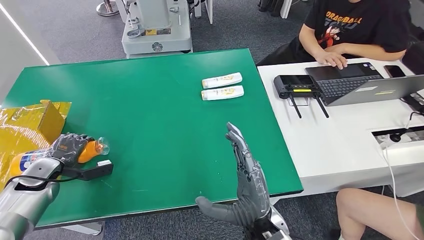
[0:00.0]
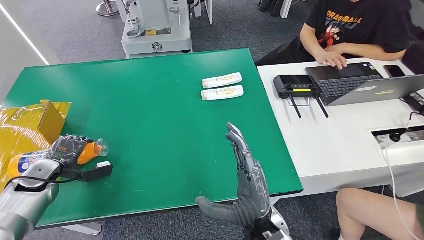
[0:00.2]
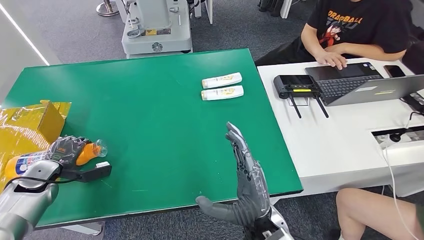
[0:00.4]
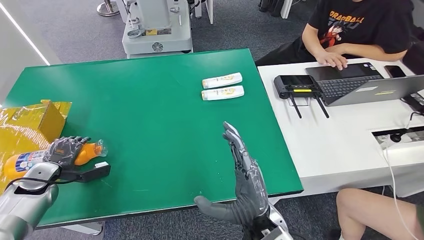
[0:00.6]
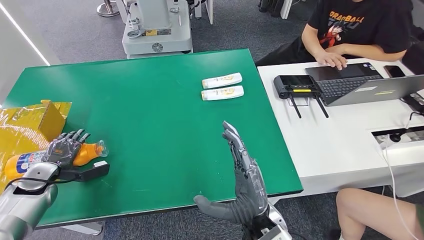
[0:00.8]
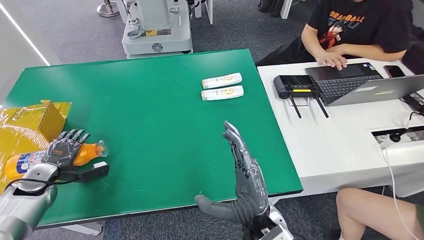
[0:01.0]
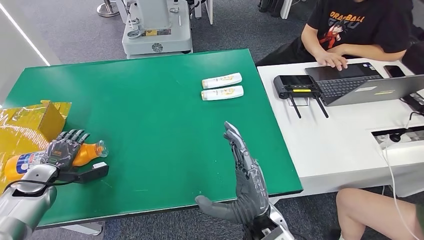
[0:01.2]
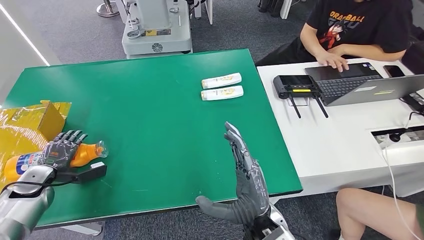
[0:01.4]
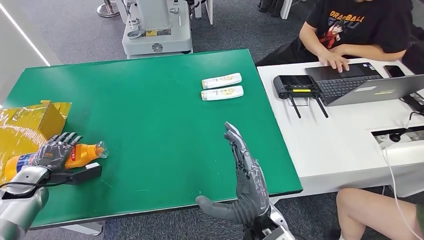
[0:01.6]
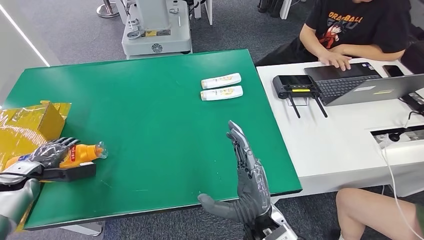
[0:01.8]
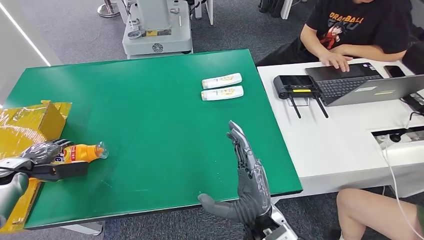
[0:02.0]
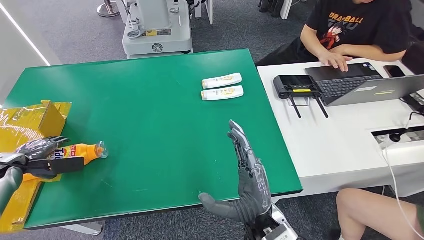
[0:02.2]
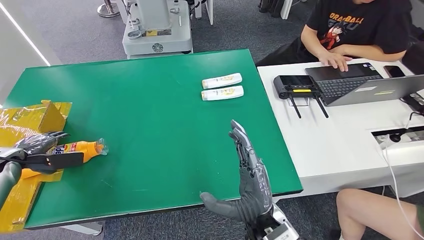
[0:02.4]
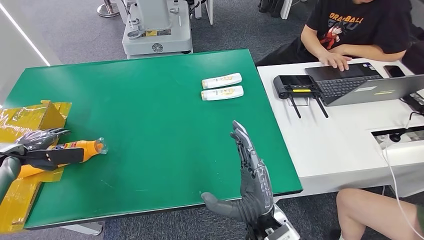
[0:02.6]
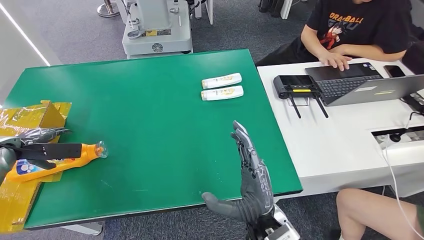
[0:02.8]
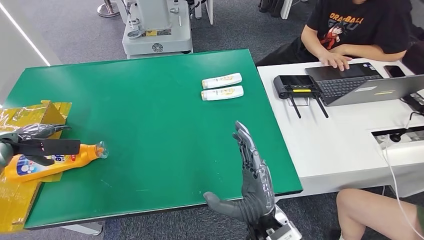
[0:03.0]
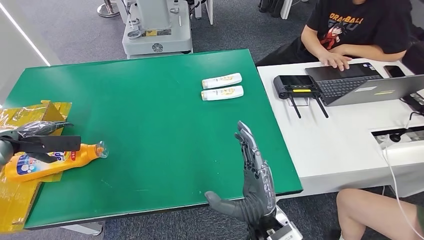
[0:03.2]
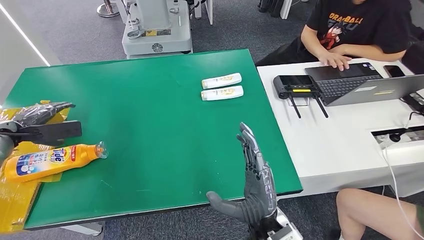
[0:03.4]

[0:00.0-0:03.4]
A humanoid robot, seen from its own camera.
Step, 0:00.0 to 0:03.4: Turn the bottle to the front side.
0:00.0 to 0:01.6: There are only small adjustments of the hands.
0:01.6 to 0:03.4: The left hand moves upward and forward, about 15 cm.
